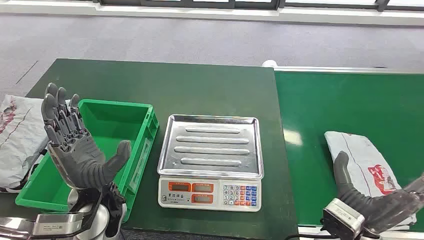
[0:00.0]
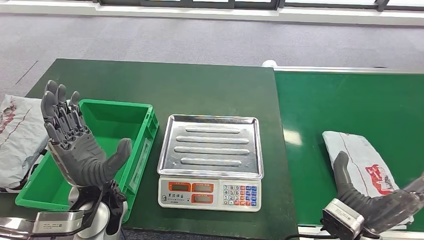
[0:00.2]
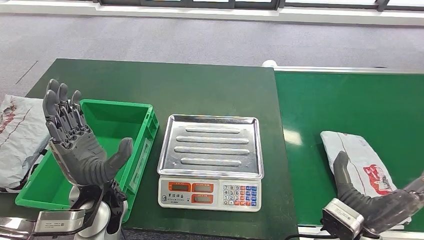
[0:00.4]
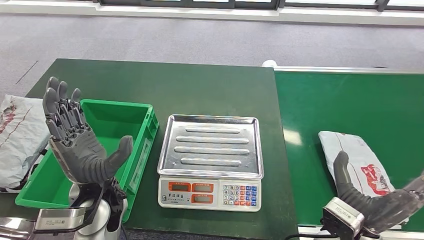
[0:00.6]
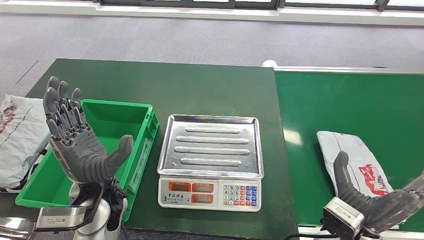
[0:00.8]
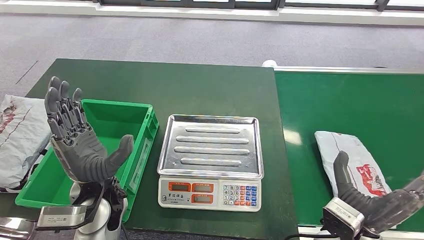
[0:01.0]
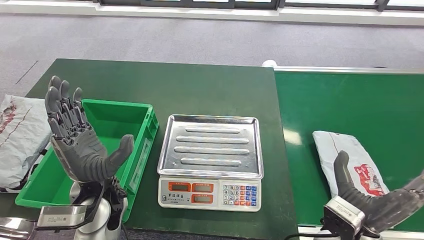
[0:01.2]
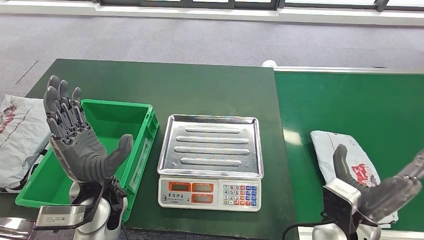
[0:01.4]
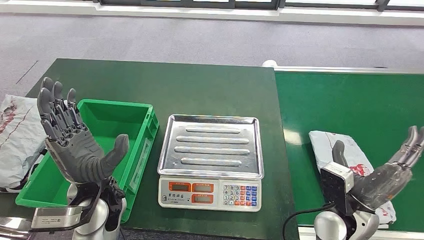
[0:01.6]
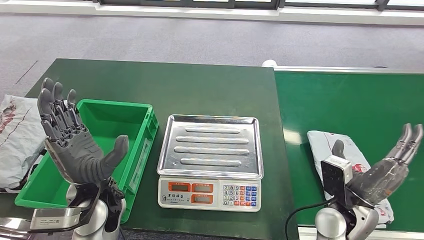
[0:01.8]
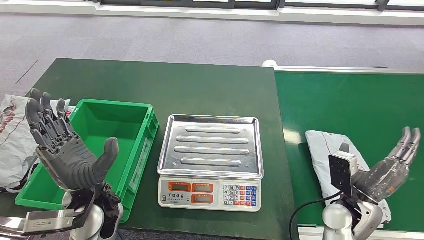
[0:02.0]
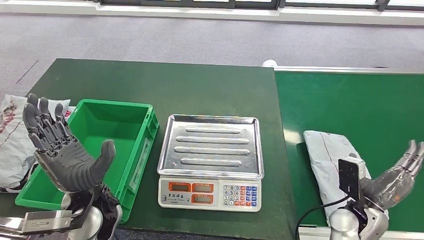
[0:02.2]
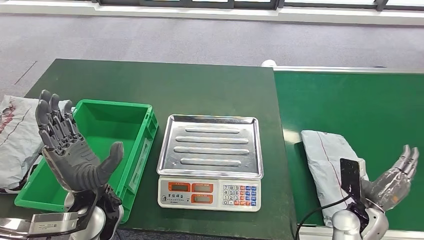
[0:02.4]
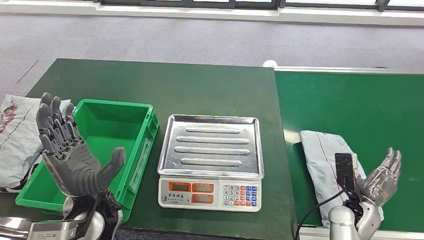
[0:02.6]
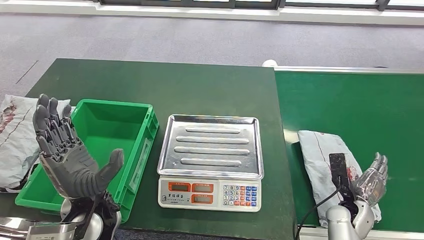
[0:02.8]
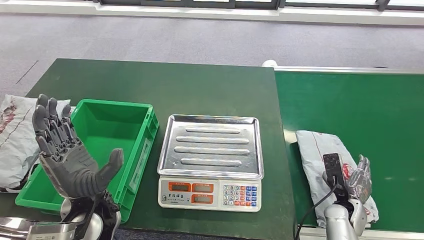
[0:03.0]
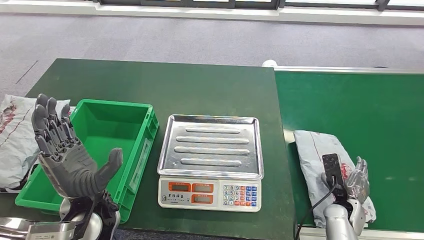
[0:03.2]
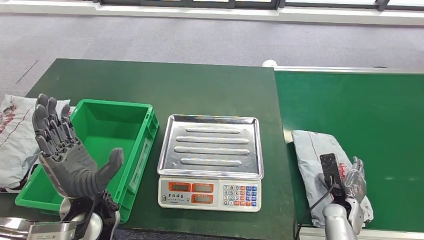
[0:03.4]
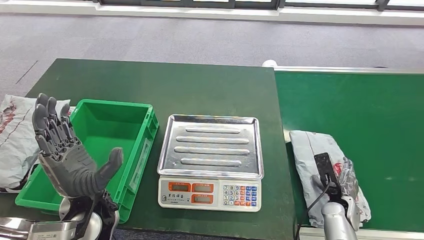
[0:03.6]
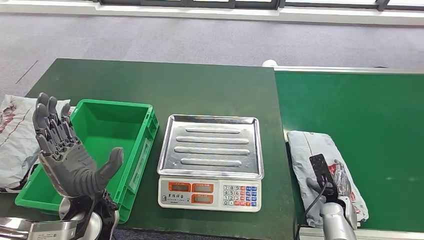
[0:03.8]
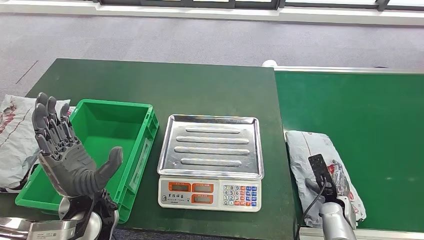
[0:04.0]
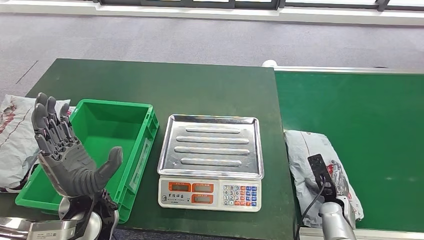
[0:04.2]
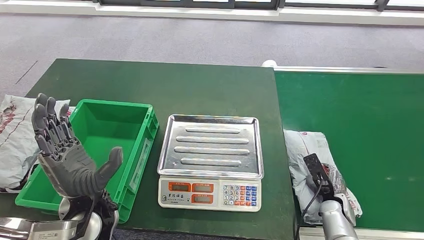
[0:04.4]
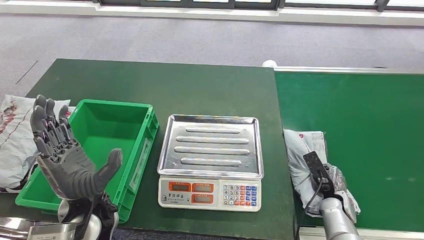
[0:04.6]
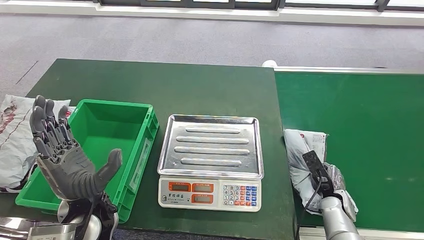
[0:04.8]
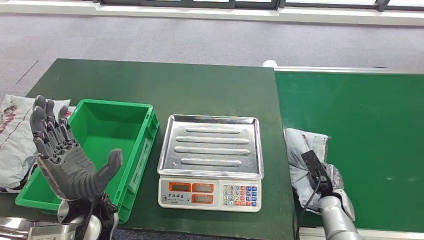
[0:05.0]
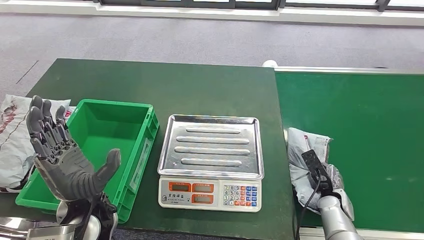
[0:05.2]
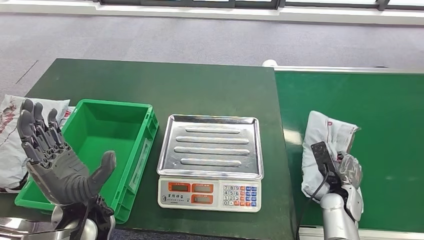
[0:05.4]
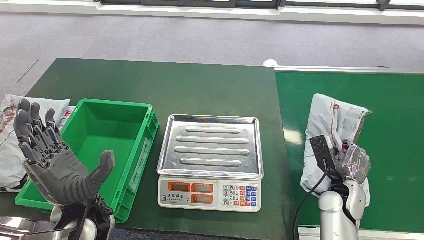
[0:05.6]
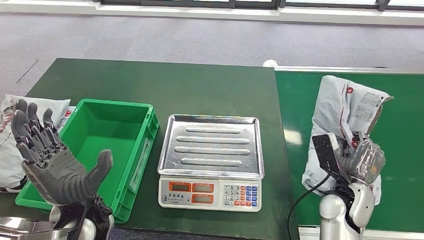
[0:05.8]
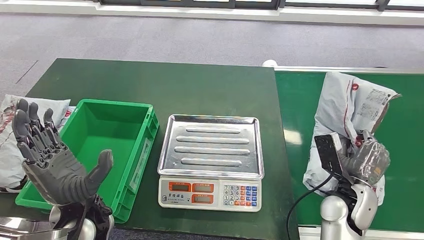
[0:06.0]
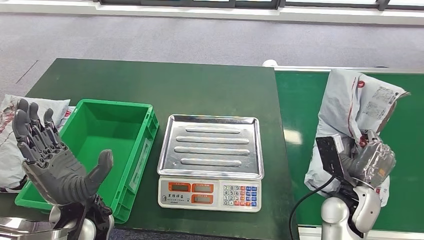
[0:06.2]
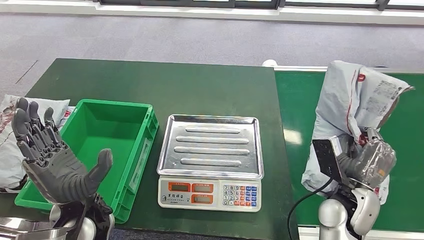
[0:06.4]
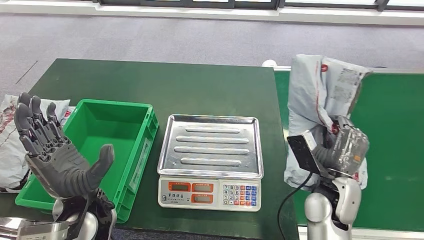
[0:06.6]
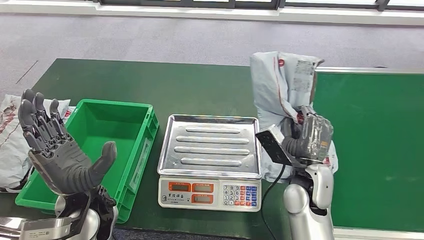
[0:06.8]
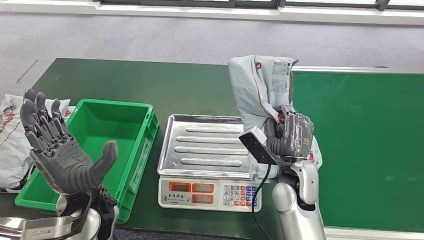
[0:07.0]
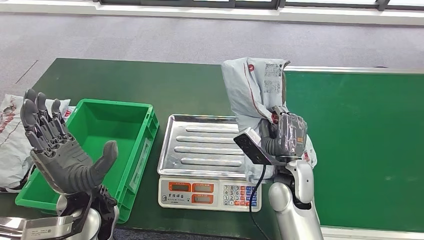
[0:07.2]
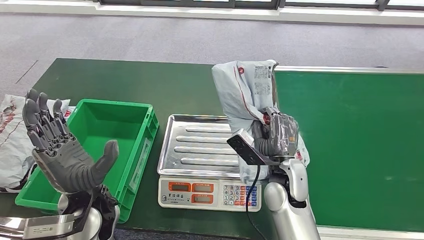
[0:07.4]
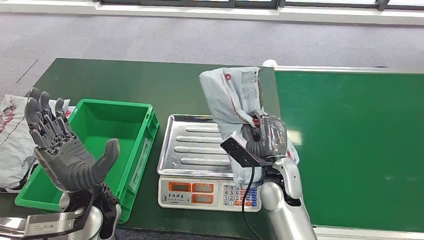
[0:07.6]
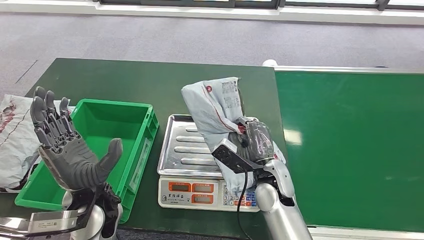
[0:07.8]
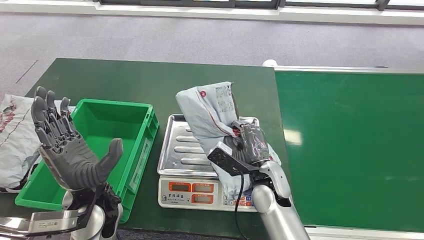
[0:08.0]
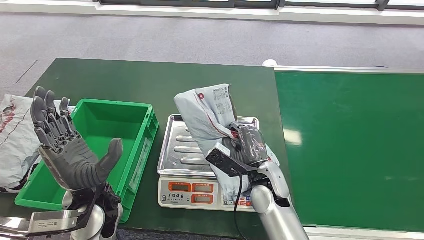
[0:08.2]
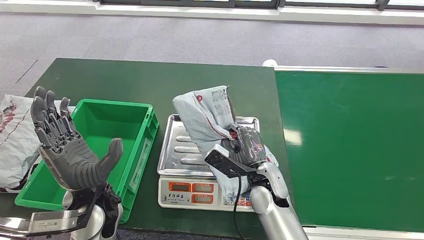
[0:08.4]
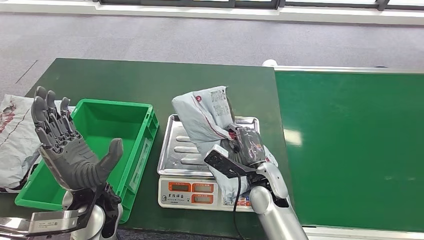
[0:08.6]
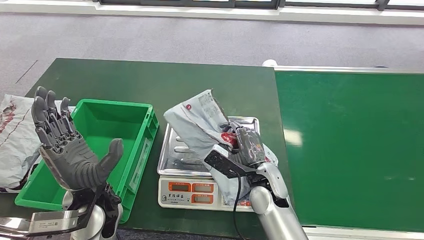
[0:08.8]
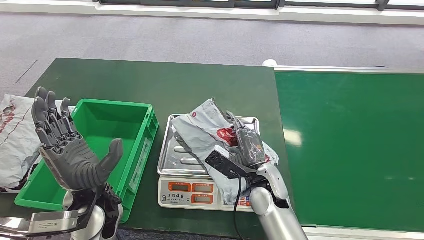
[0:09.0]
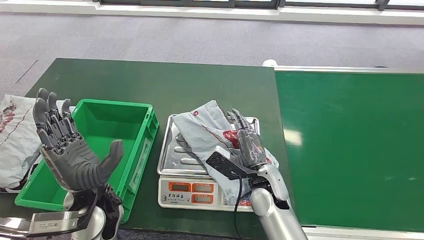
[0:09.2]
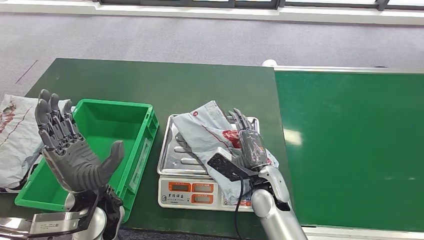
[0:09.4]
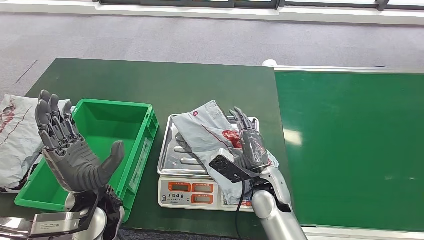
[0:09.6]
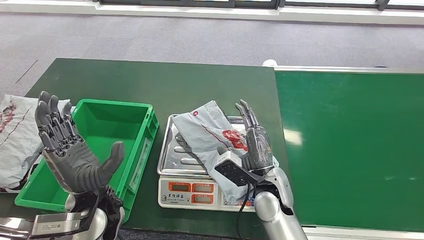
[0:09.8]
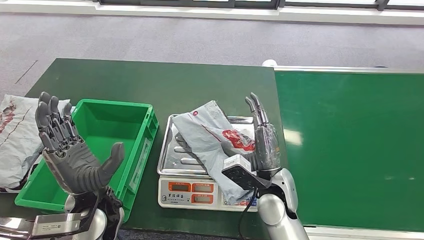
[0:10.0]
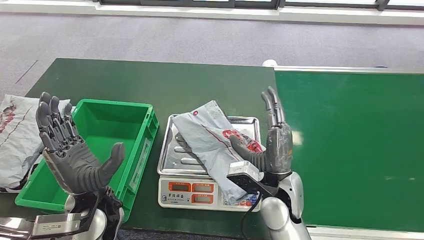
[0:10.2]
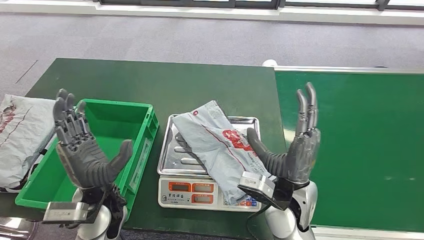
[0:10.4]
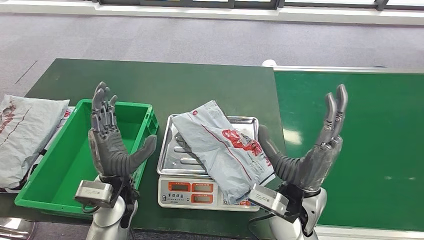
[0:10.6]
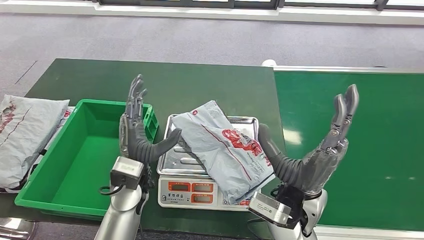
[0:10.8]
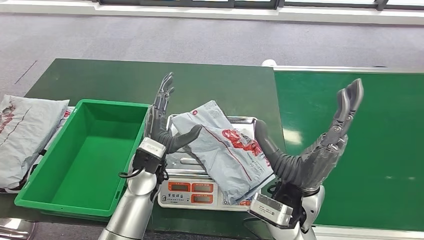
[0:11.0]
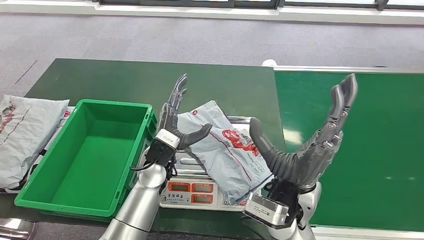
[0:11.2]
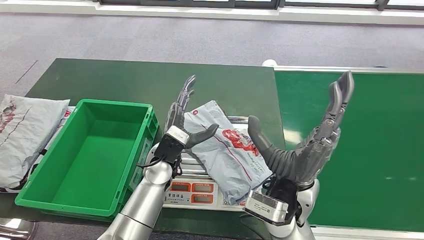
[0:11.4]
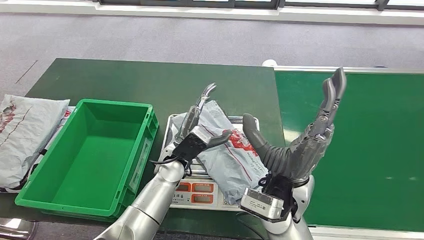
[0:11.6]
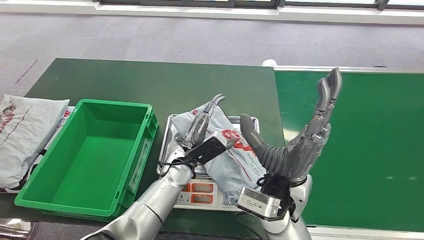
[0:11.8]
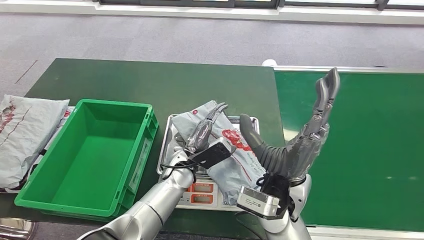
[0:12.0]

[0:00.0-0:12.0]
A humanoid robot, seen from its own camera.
Step, 0:00.0 to 0:06.2: Take the parcel off the conveyor belt.
Step, 0:06.6 to 0:09.4: Place the parcel onto the inbound machine.
0:01.6 to 0:03.0: The right hand goes some 15 cm downward and to the right.
0:04.4 to 0:06.0: The right hand heads upward, covering some 15 cm.
0:07.6 to 0:09.0: The hands move only a little.
0:09.0 to 0:10.4: The right hand heads upward, covering approximately 5 cm.
0:10.4 to 0:12.0: The right hand ends up approximately 5 cm from where it was. The left hand heads to the right, forward and downward, covering roughly 20 cm.

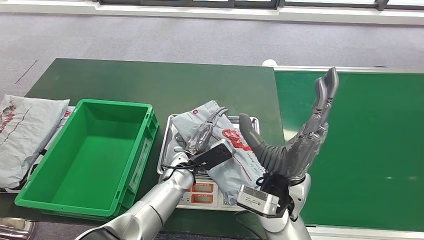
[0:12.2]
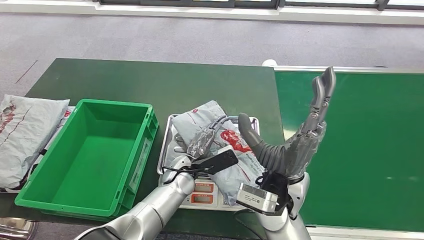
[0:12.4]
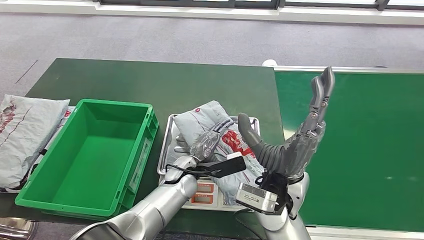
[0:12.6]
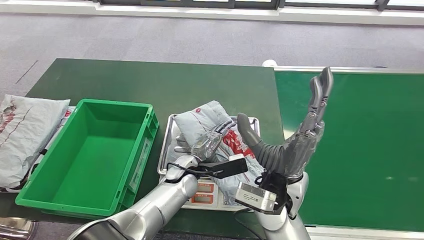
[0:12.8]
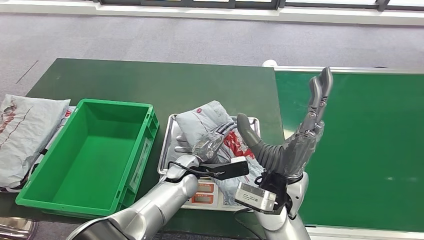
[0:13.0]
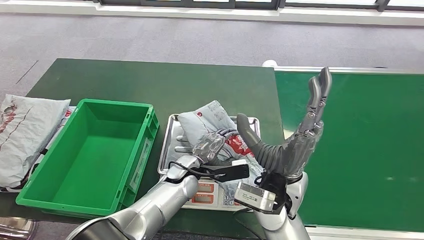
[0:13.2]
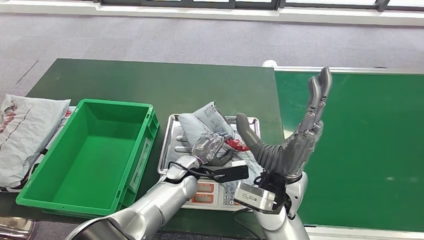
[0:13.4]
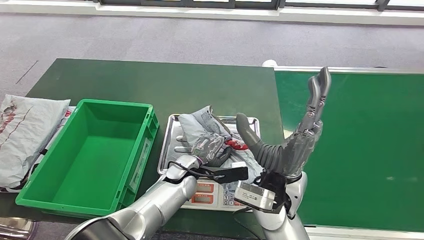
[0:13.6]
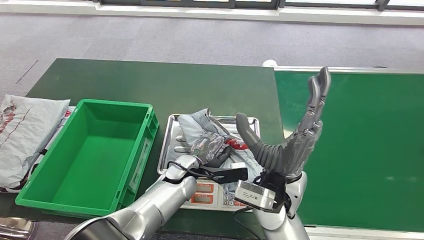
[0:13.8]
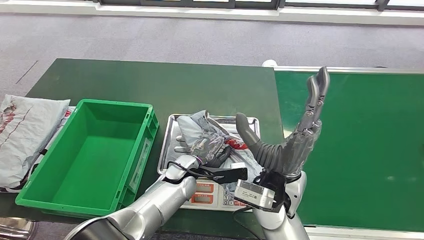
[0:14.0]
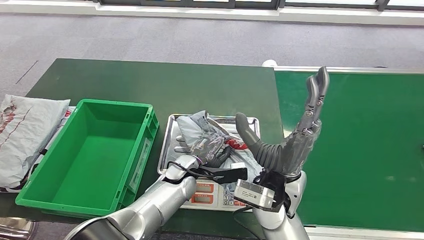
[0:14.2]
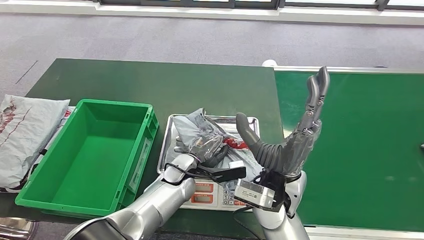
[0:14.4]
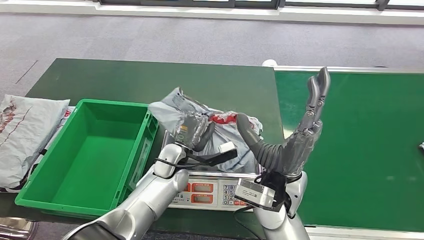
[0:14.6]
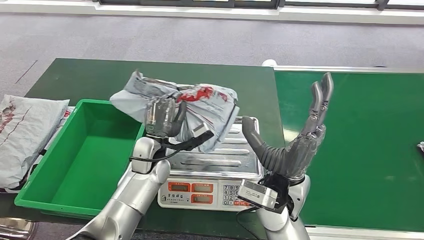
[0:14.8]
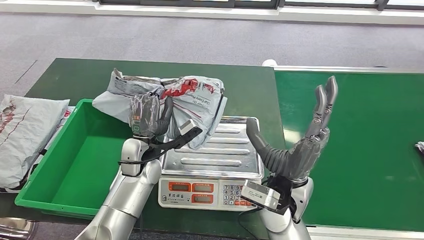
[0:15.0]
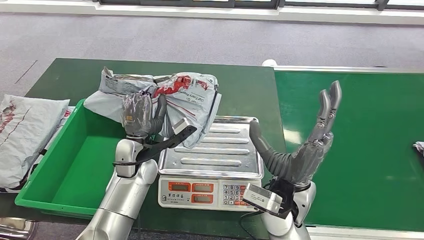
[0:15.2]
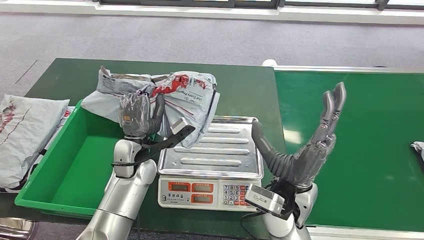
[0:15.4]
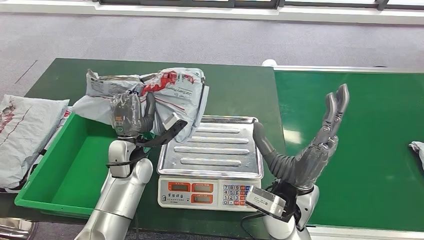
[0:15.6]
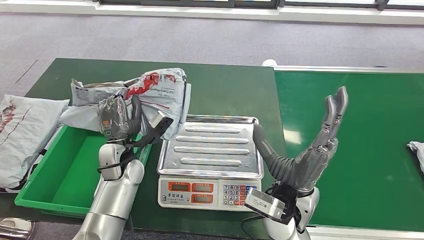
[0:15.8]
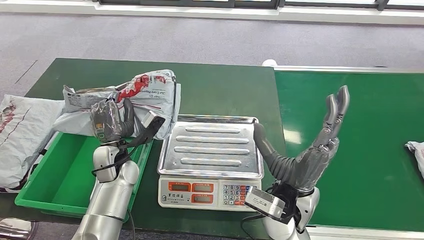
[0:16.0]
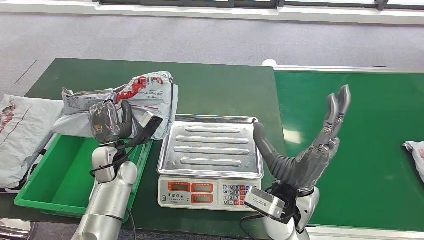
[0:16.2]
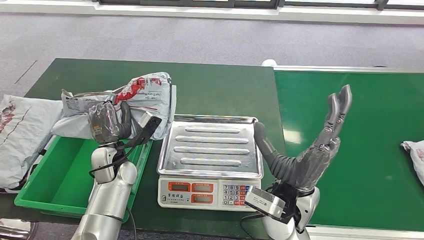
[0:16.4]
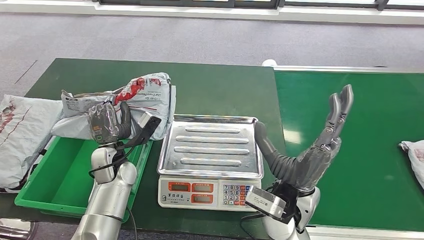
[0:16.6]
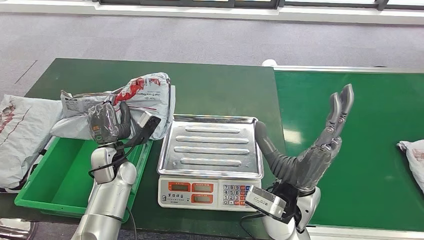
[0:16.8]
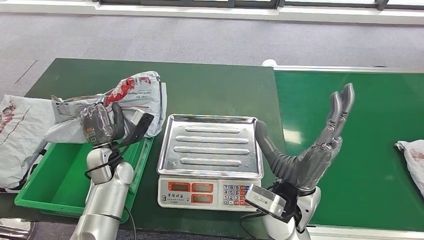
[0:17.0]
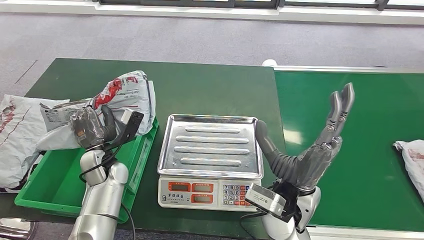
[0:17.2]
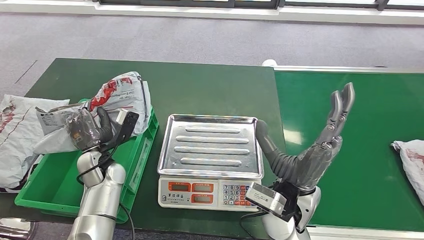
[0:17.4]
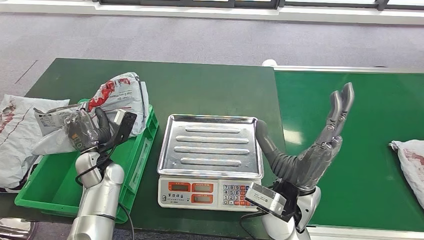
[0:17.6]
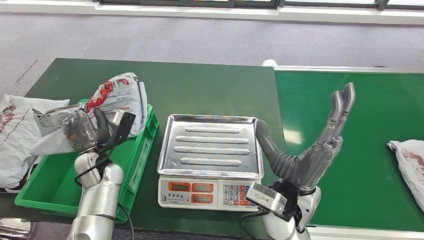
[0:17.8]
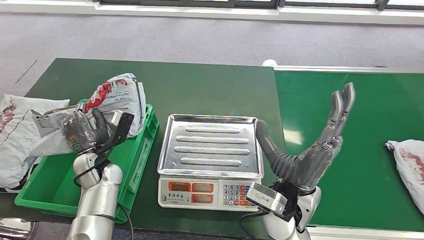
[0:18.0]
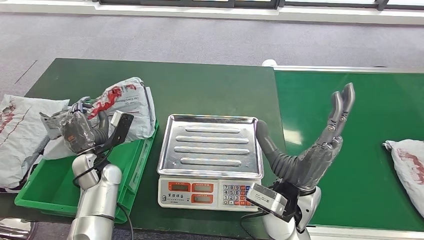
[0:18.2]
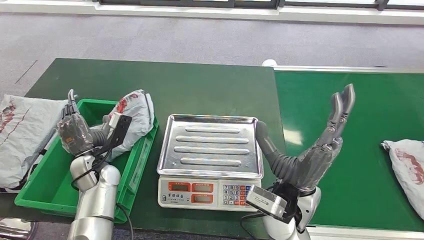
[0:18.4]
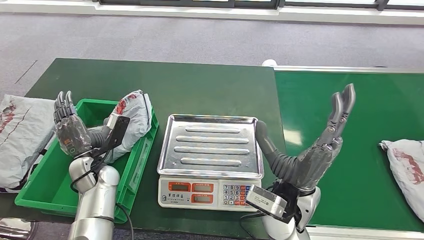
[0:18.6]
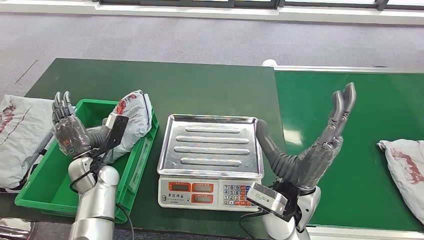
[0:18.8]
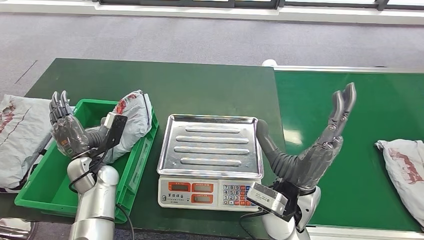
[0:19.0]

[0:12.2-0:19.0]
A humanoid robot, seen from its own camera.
Step, 0:12.2 to 0:15.2: Pick up the parcel from the inbound machine.
0:15.0 to 0:16.2: The left hand goes about 5 cm to the left.
0:16.2 to 0:17.6: The hands make only small movements.
0:17.6 to 0:19.0: The hands stay close to where they were, moving slightly.
